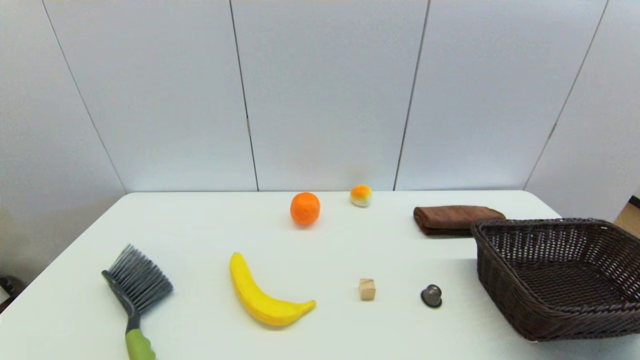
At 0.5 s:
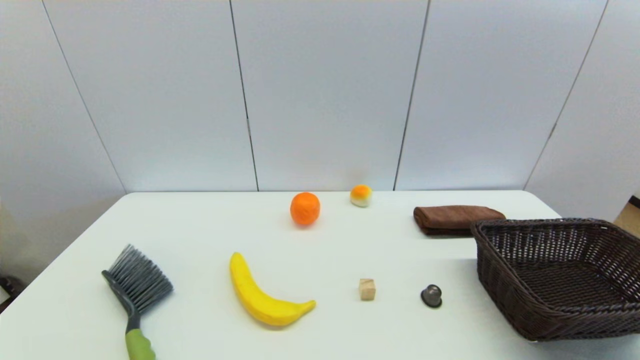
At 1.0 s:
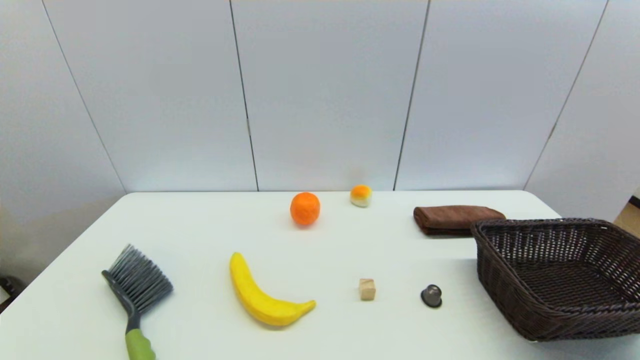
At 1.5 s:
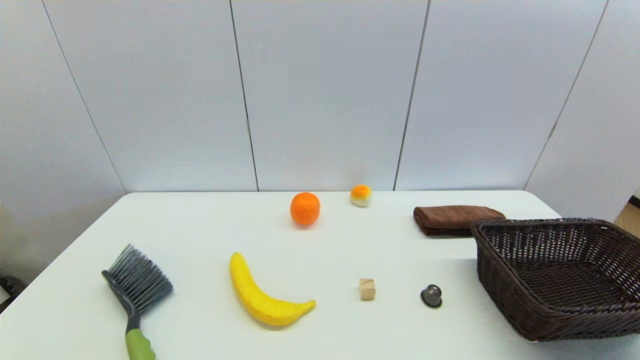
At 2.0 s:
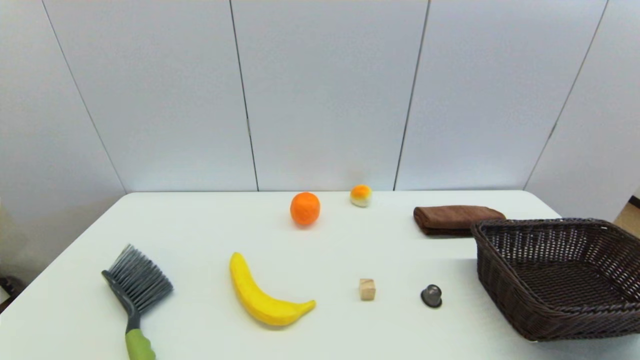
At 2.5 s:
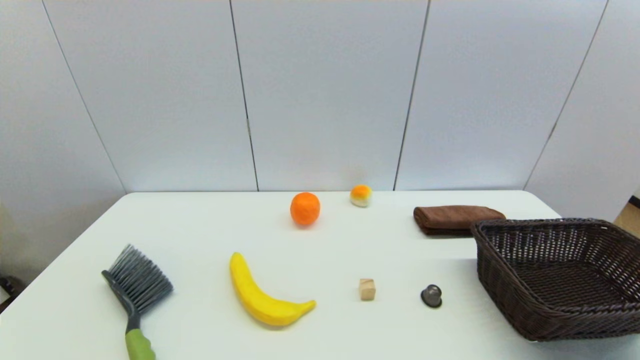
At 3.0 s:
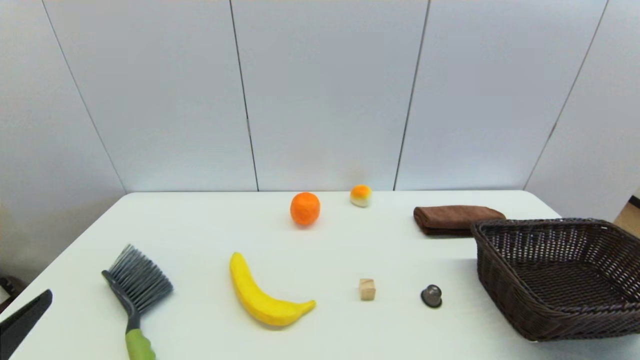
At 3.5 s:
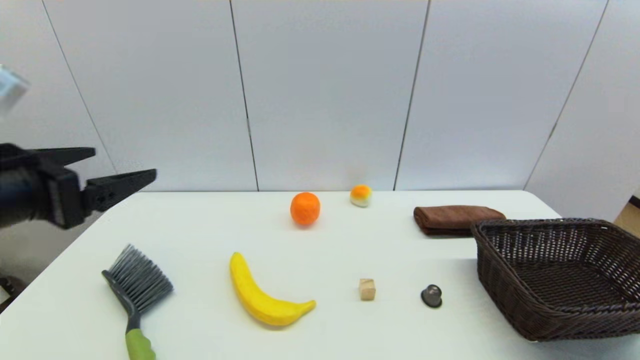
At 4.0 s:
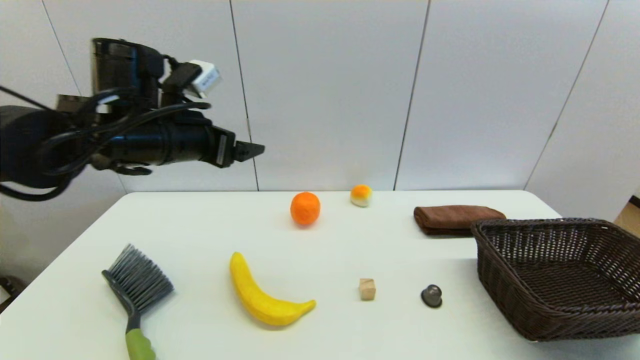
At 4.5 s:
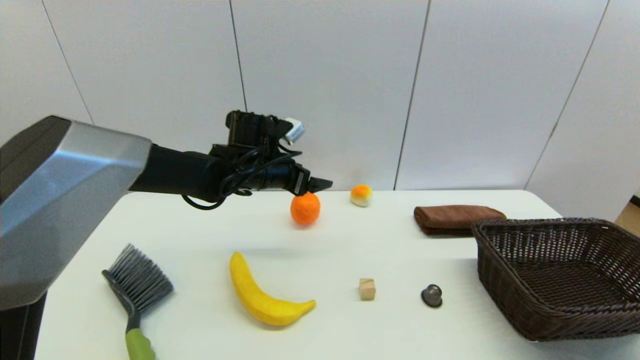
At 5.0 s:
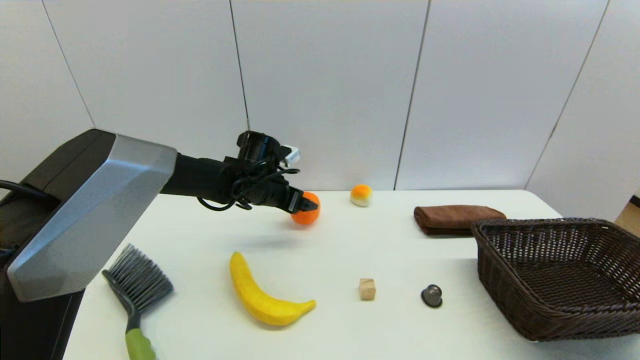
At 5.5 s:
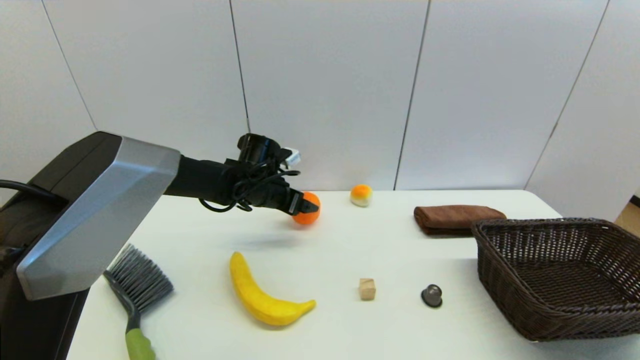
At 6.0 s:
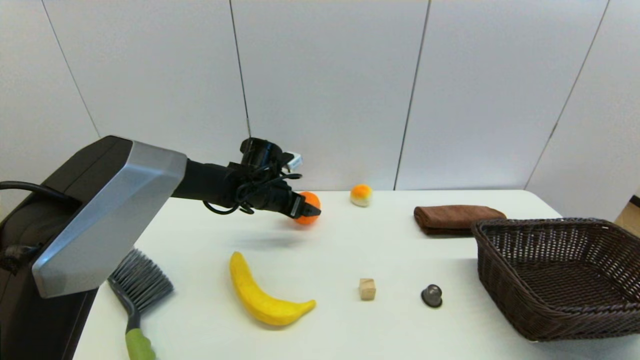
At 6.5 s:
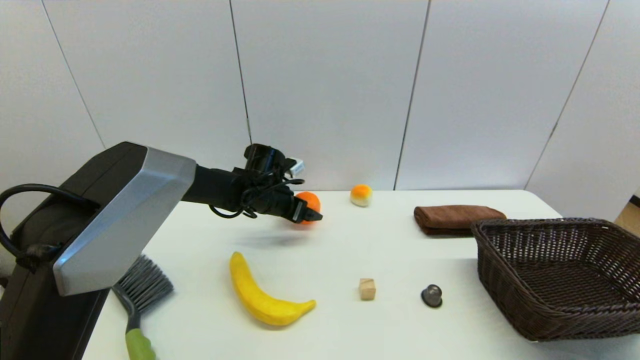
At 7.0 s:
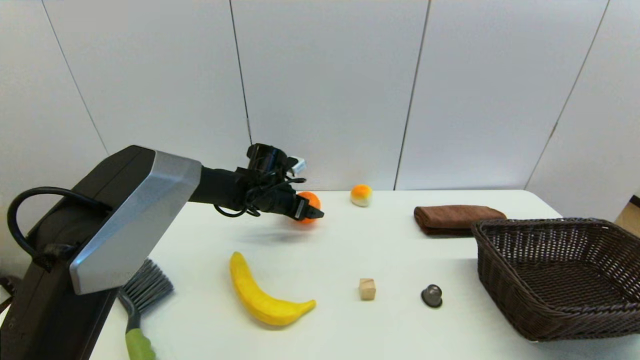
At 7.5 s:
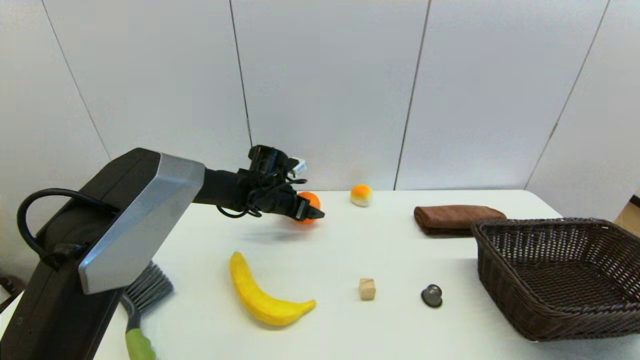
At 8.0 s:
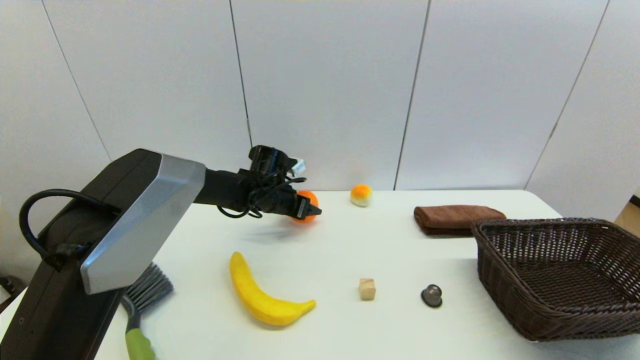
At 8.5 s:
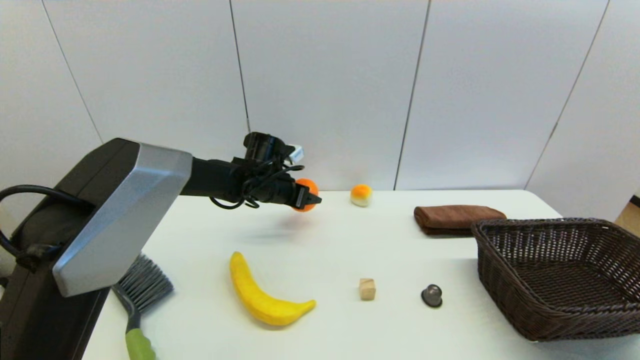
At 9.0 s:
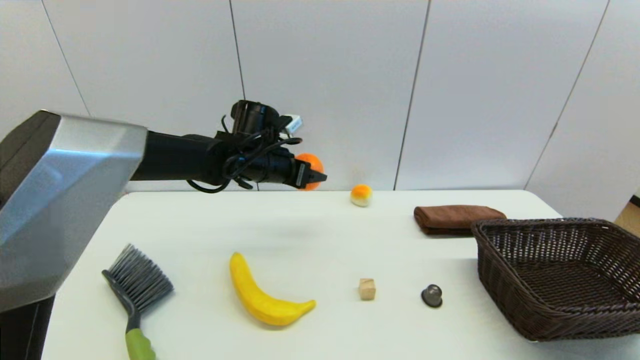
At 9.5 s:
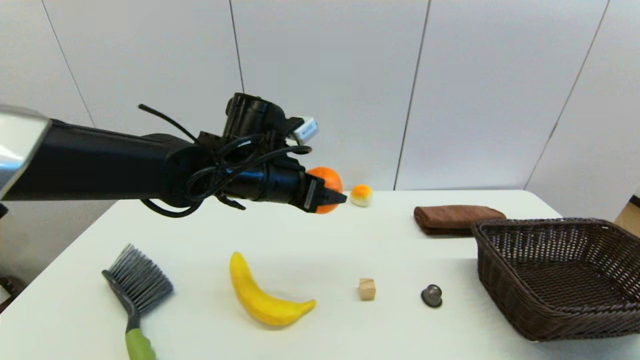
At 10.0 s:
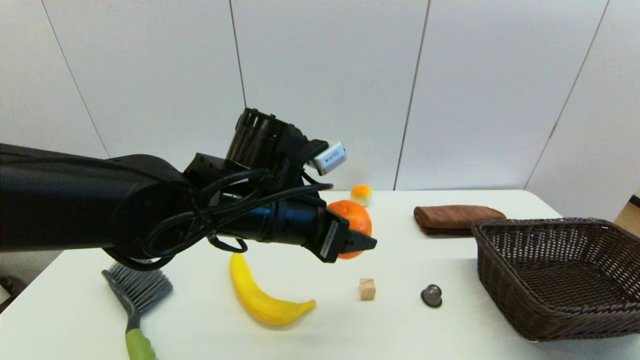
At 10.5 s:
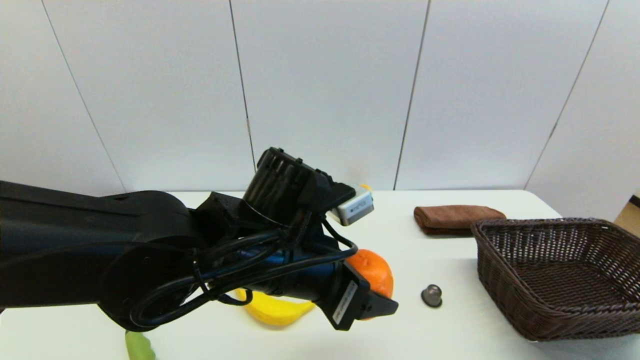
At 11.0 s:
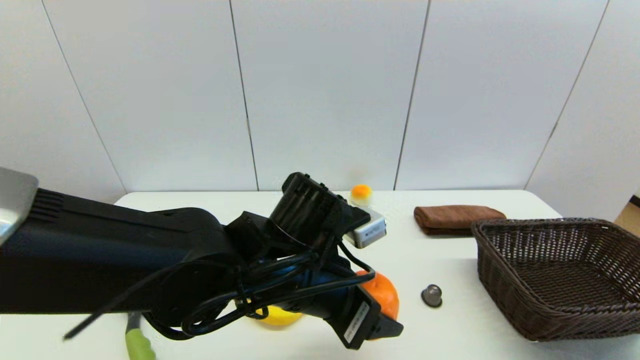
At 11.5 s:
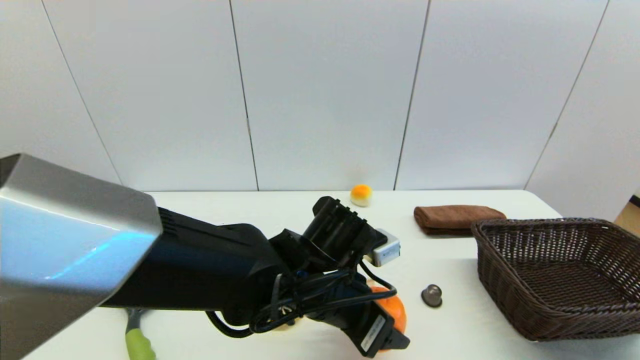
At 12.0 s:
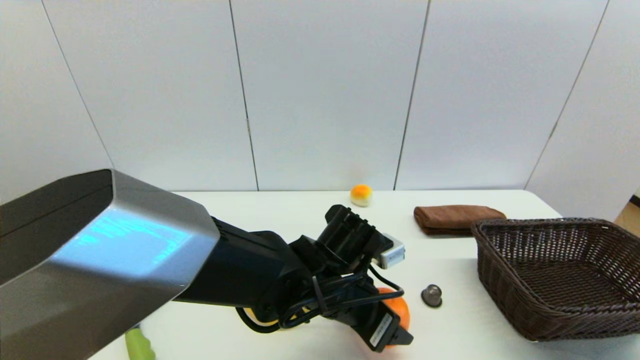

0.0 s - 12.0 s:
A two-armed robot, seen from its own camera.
Step, 3.0 s - 8.0 s: Grasp the orange with left gripper.
0.0 s - 2.0 s: Both grippers stay put.
2.0 s - 4.0 s: The left gripper shifts roughly 40 cm forward and upward.
4.0 s - 6.0 s: The left gripper shifts approximately 20 cm downward, forward and to the right.
6.0 s - 8.0 s: The left gripper closes its fingers.
8.0 s - 10.0 s: The left gripper shifts roughly 25 cm backward and upward.
10.0 s - 12.0 s: The left gripper shifts about 15 cm downward and to the right.

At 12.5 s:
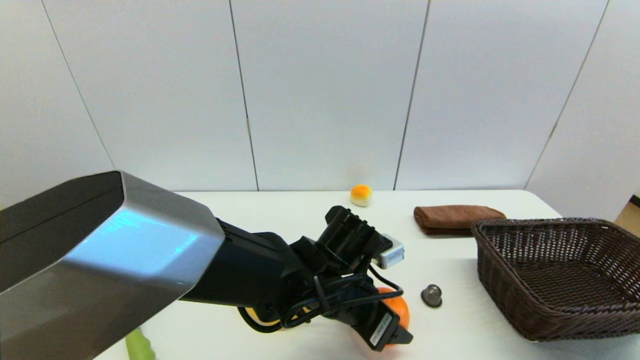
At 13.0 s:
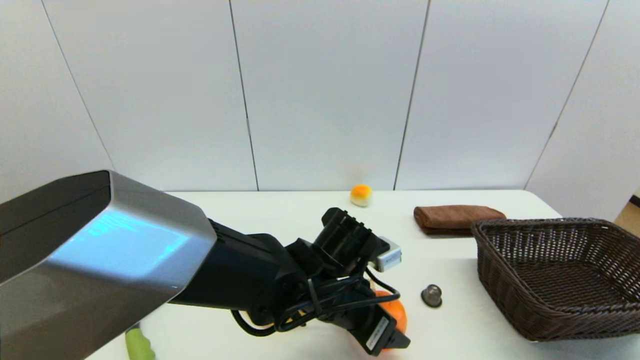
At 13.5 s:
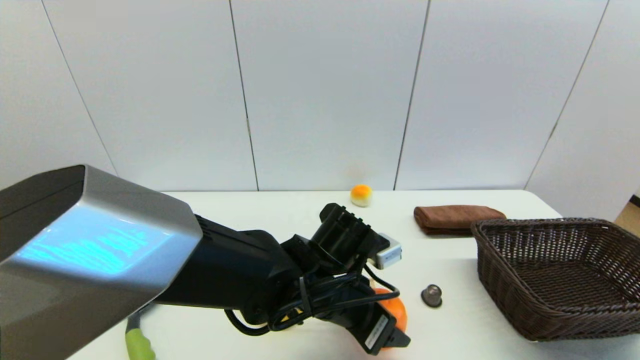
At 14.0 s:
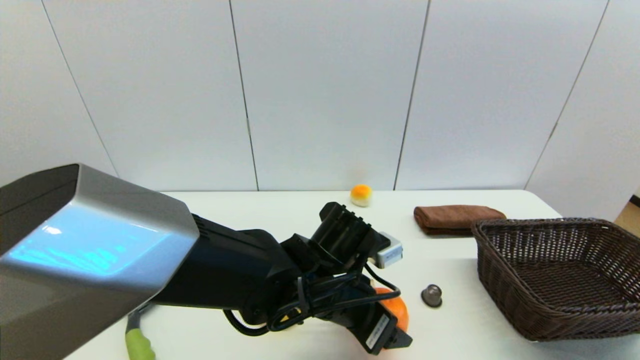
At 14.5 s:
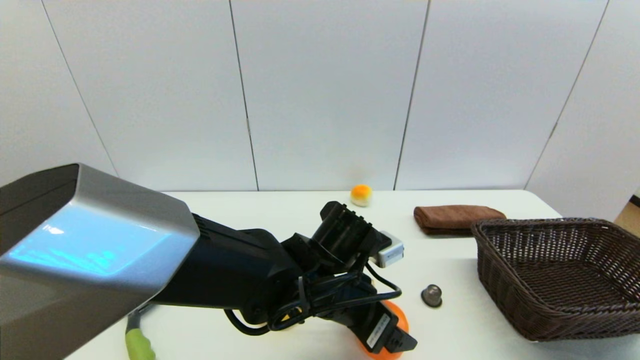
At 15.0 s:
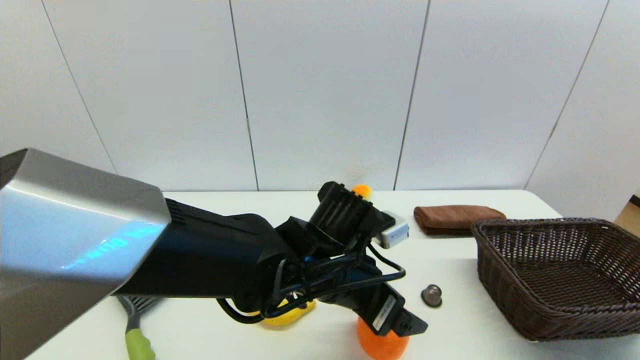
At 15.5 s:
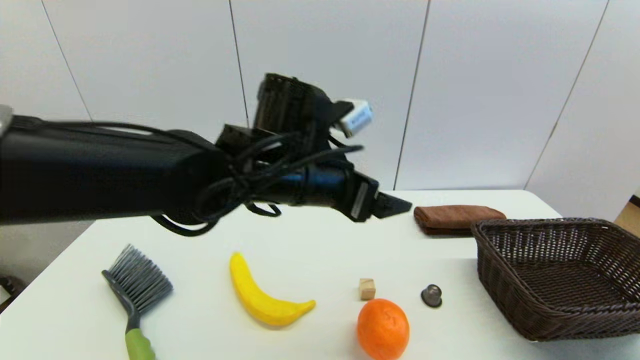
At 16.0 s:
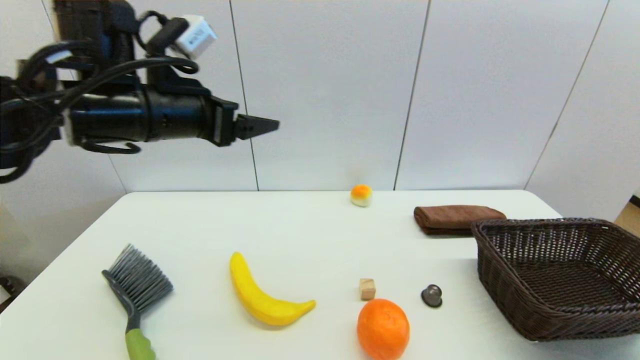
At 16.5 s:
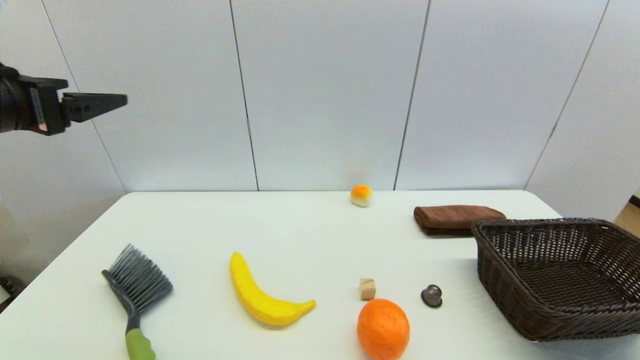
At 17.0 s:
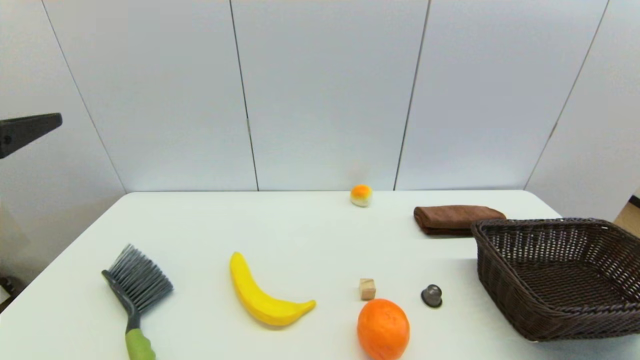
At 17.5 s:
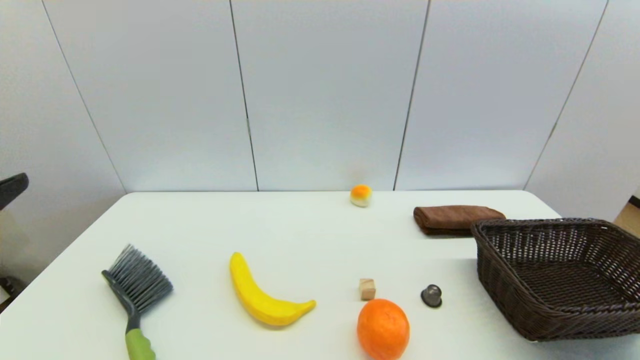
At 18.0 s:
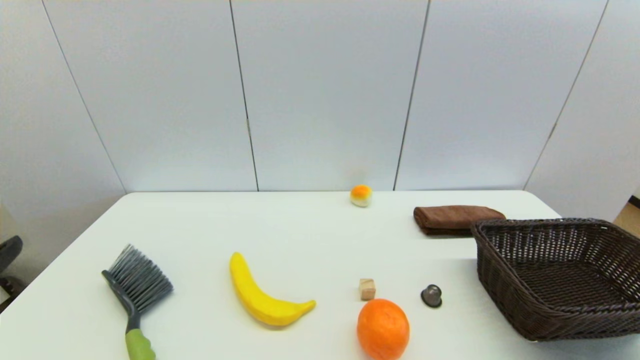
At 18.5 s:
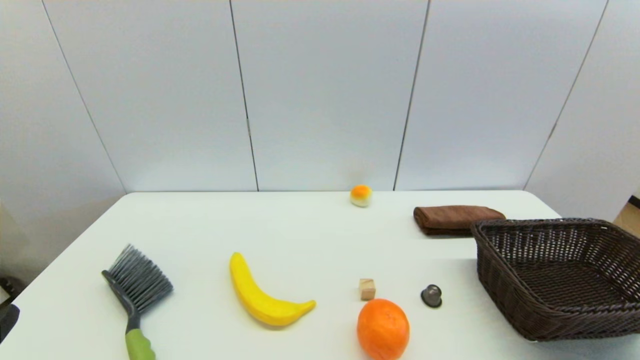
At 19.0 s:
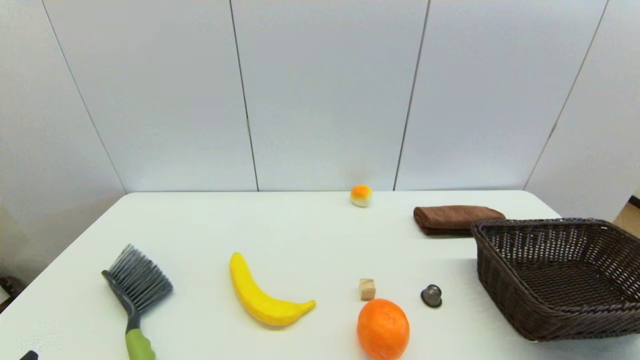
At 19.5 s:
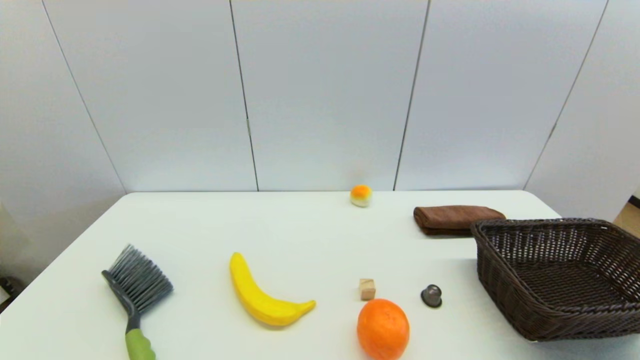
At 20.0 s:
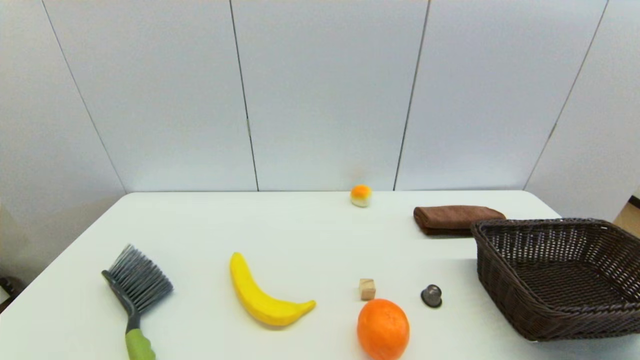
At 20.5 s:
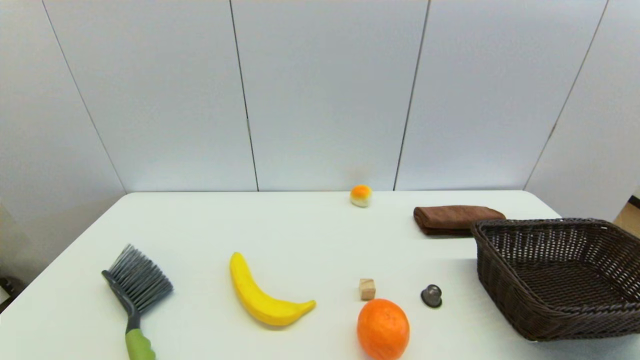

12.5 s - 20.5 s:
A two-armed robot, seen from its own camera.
Step, 12.5 s - 14.5 s: Place the orange on the table with left gripper.
12.5 s - 14.5 s: The left gripper opens up.
14.5 s - 16.5 s: The left gripper is displaced to the left and upward by about 40 cm.
16.5 s - 18.5 s: The left gripper heads backward and downward, covering some 25 cm.
